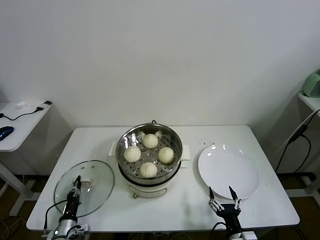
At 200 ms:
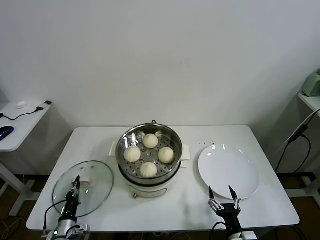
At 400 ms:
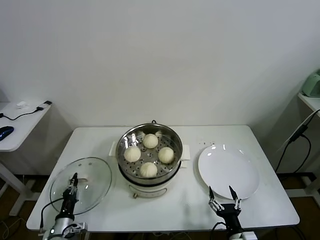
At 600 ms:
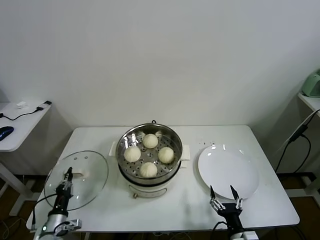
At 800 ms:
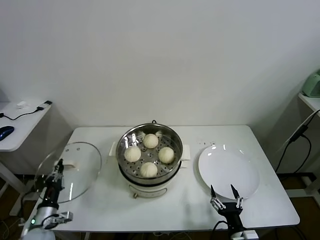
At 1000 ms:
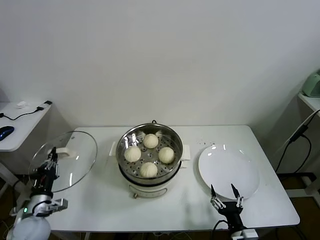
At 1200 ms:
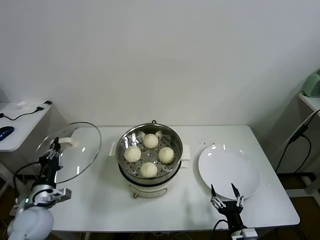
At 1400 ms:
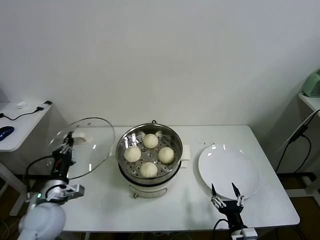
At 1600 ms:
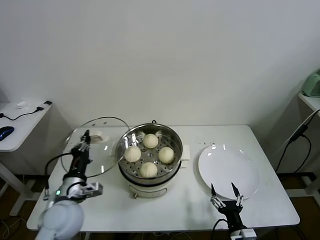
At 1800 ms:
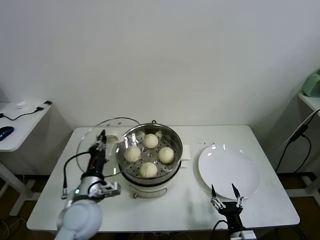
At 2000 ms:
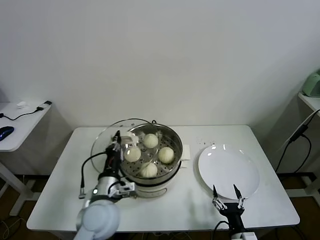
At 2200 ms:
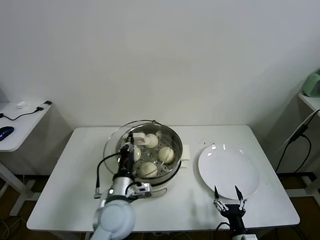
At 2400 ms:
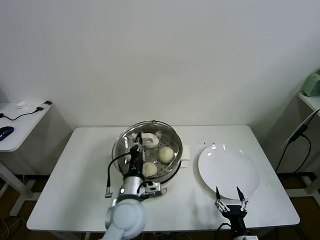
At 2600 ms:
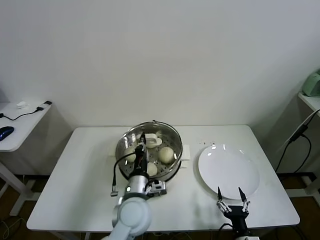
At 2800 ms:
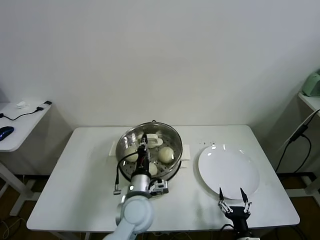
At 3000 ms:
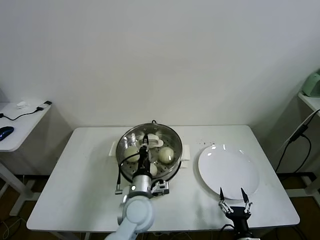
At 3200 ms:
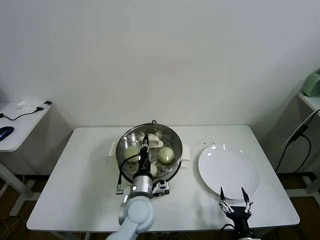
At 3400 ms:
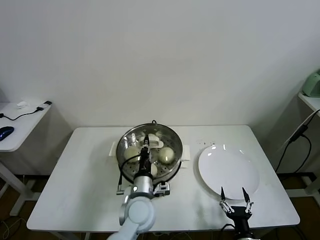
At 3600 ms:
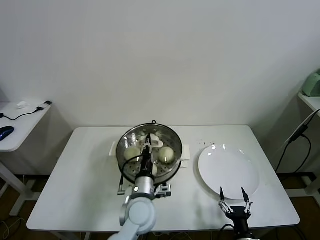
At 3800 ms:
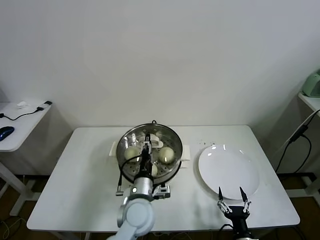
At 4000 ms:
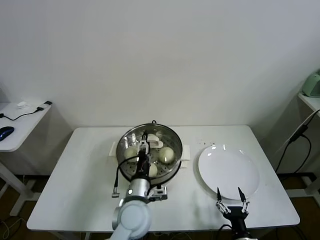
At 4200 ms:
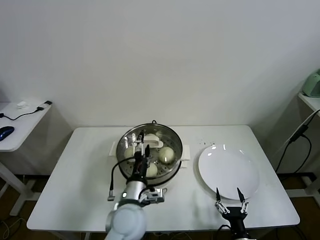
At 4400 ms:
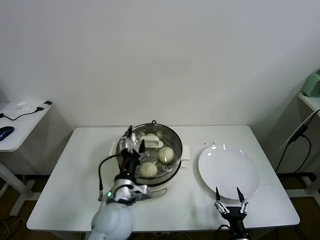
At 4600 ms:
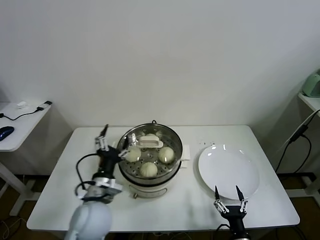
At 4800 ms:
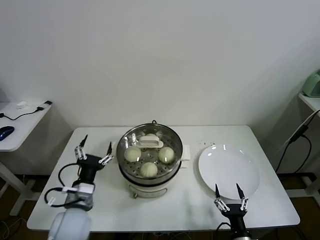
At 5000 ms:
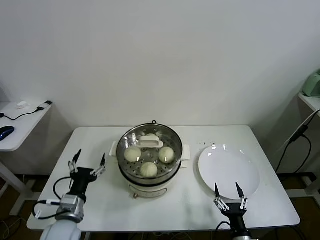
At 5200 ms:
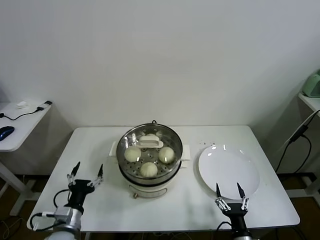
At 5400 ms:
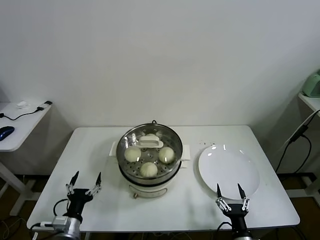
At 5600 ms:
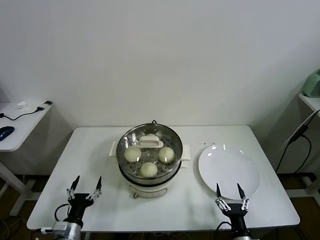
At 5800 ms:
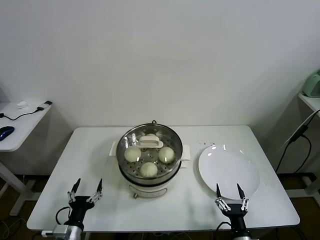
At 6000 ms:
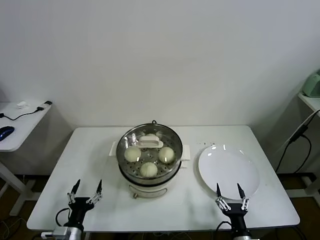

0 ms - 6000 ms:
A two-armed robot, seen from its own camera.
Task of the whole recording: take steamed baozi put them in steamer.
Step, 200 ms - 3800 ms: Place the pot lid on the steamer with left gripper.
0 ms - 1600 ms: The left gripper goes some 25 cm upward.
1600 ms - 3000 ms: The left gripper shifts approximately 20 cm to the right.
3000 ms - 4400 ms: The left gripper ends up approximately 5 cm from where it was, and opens its fingers.
4400 ms - 6000 ms: The left gripper goes some 25 cm to the left, downward and backward.

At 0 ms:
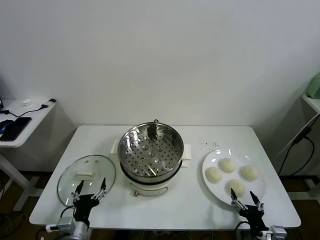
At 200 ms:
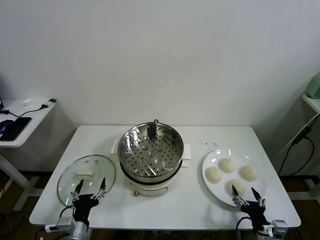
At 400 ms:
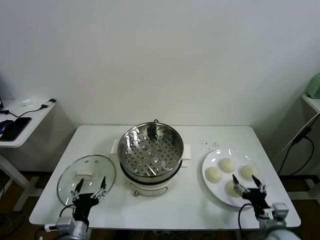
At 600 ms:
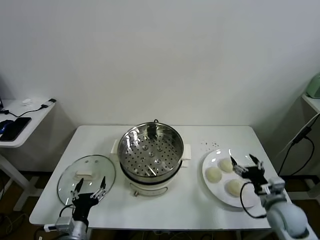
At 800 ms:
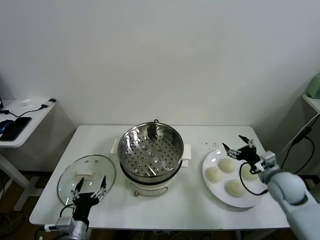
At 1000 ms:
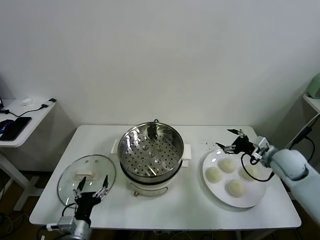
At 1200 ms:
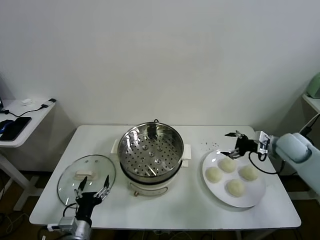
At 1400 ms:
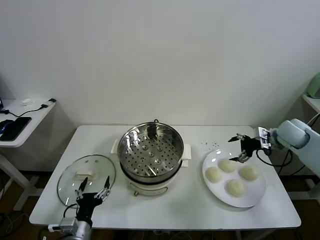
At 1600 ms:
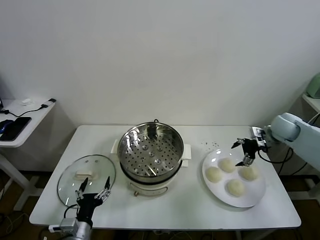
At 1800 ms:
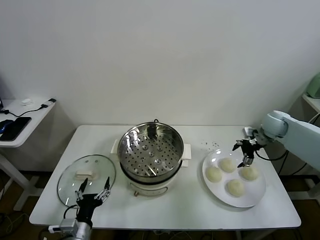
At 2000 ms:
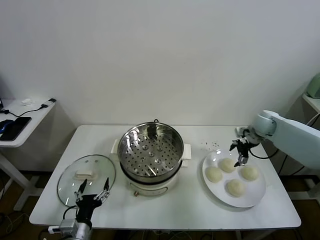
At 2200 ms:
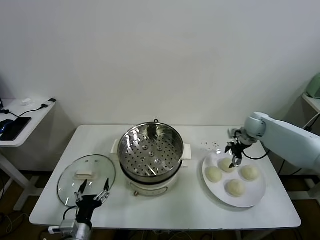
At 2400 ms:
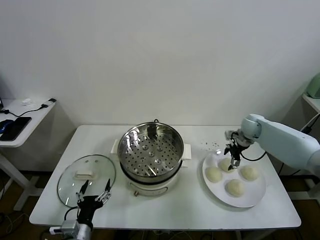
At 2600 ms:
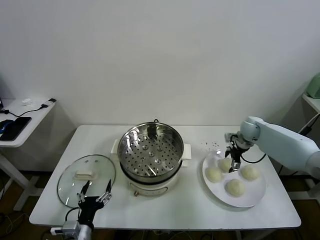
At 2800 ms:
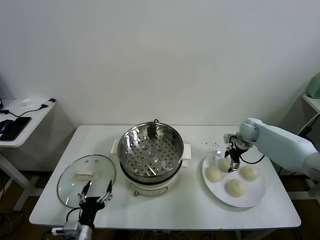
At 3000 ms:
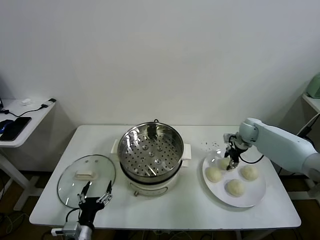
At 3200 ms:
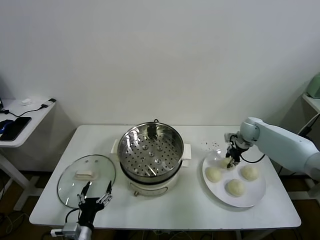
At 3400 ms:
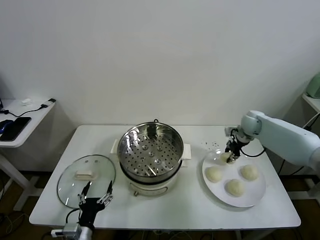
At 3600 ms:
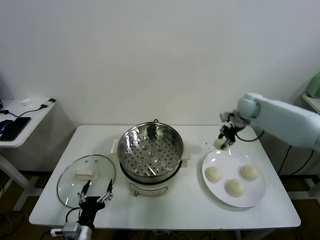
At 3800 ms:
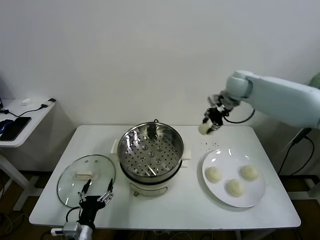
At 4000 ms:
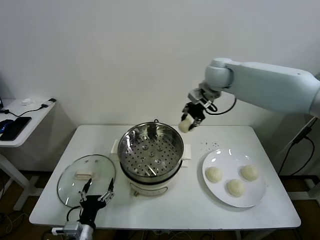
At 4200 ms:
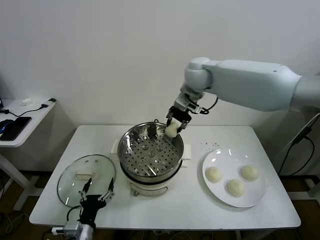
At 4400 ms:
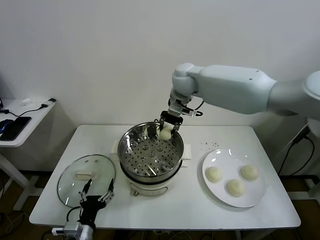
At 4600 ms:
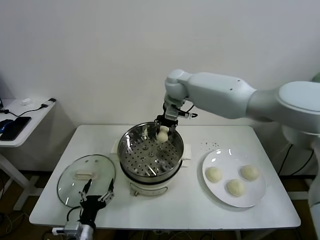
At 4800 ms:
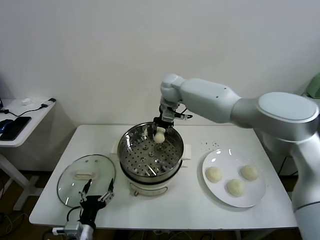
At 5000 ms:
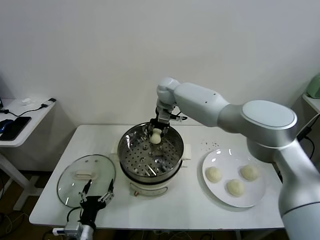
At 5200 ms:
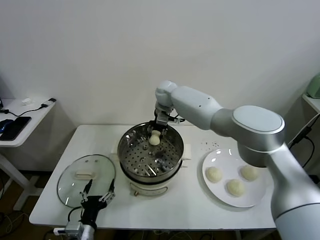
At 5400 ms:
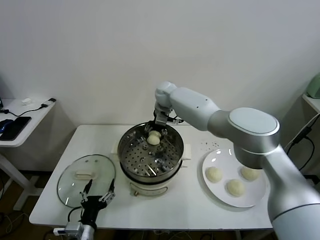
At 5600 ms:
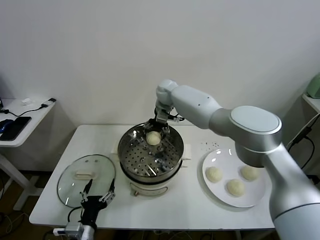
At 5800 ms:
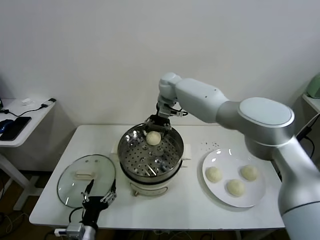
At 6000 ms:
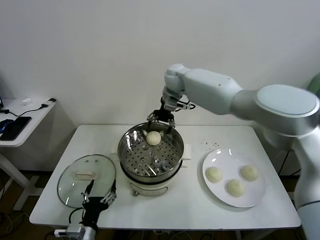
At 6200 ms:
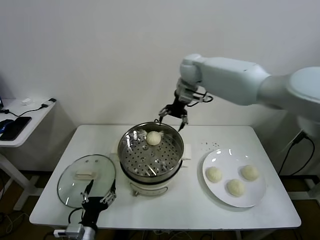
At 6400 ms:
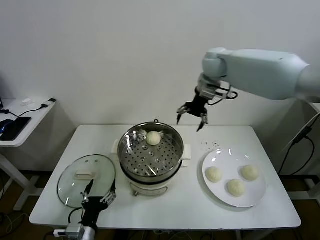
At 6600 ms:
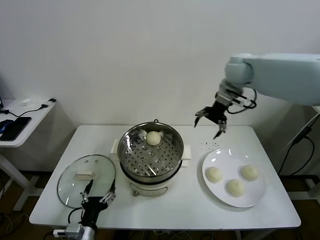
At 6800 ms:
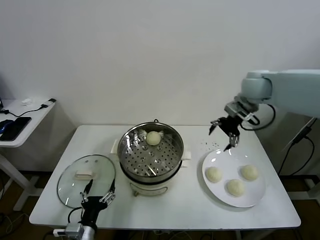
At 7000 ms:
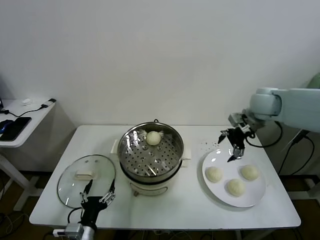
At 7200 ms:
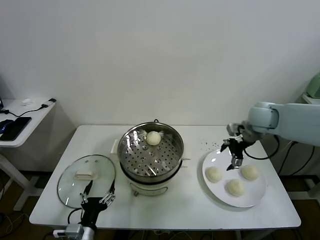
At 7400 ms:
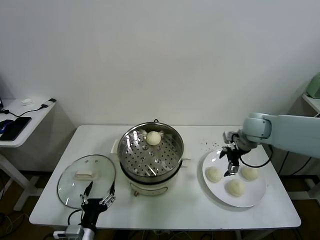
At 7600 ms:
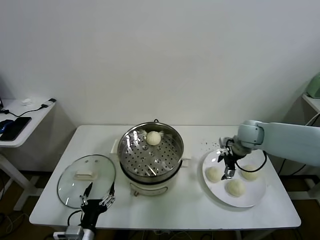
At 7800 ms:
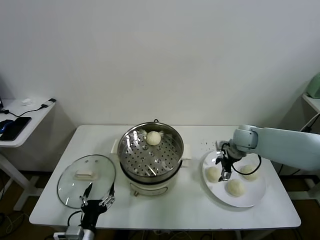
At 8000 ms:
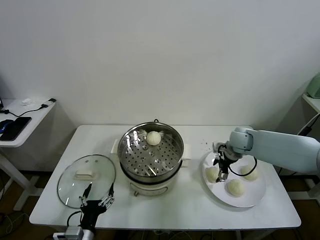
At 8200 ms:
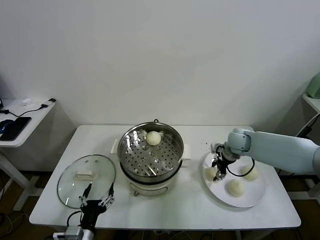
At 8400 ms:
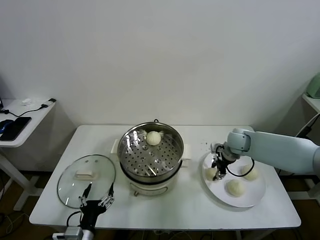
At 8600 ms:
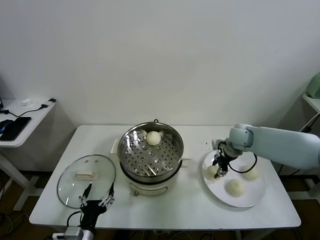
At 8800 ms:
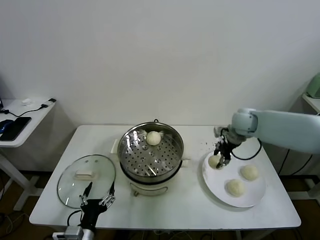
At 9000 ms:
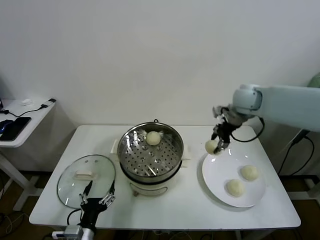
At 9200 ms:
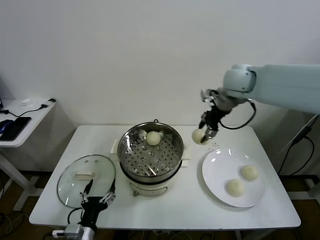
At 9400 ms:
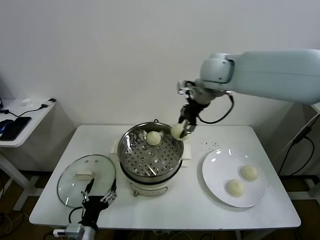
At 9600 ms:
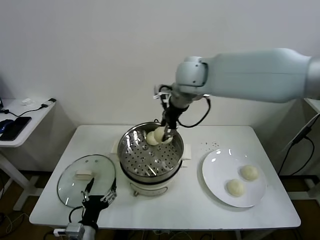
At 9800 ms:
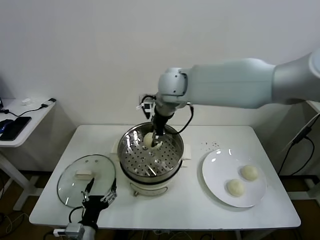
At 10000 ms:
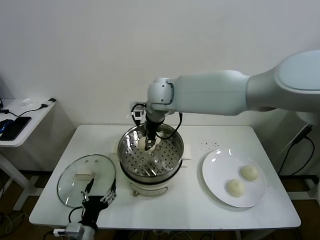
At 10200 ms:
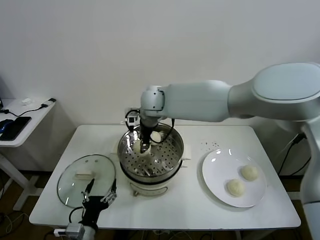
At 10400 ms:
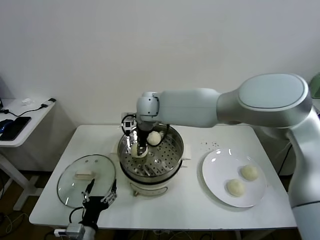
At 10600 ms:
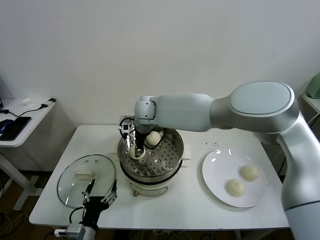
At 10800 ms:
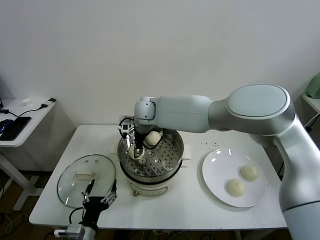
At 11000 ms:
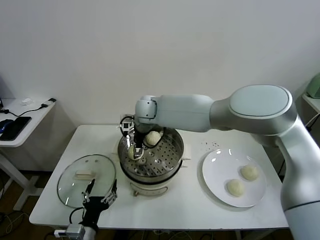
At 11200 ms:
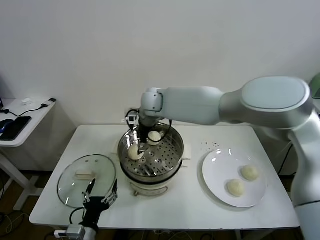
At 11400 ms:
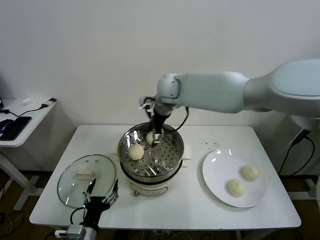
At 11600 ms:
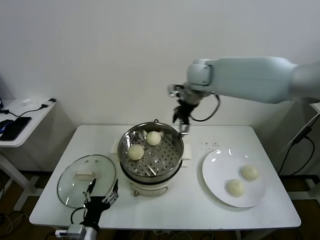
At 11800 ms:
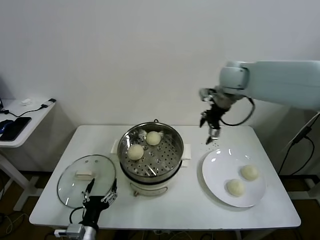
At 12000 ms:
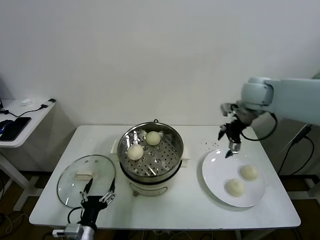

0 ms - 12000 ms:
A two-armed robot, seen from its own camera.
Task of the whole recording: take steamed baozi put them in steamer.
Step, 0 ms - 2800 ms: Grasp the baozi in the plate with right gripper.
Step, 3000 ms - 5600 ms: Place the baozi on the steamer with right gripper.
Step, 5800 ms - 8000 ms: Grasp the baozi in the plate with right gripper.
Step, 8200 ms - 11000 ms: Place the baozi on the steamer with right gripper.
1600 ms - 3000 ms: The right gripper is displaced downward and to the left by roughly 10 cm, and closes.
3000 ms - 4400 ms: The right gripper travels to the left and upward by roughly 35 cm.
4400 ms - 6000 ms: The right gripper moves some 10 cm downward and comes back, and opens.
6000 ms - 7600 ms: The right gripper moves to the right, downward and backward, some 35 cm.
7600 ms - 9000 ms: The right gripper goes approximately 20 cm upward, and closes its fingers.
9000 ms - 10400 ms: The right gripper is displaced to the left by approximately 30 cm.
10400 ms - 12000 ms: The right gripper shifts approximately 35 cm to the right, and opens its fingers.

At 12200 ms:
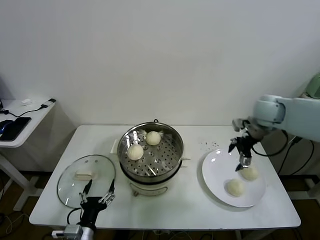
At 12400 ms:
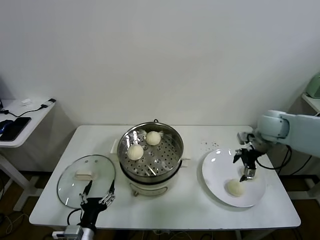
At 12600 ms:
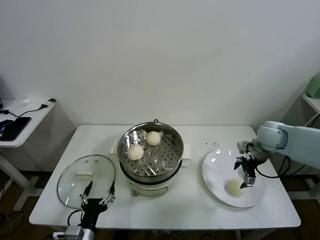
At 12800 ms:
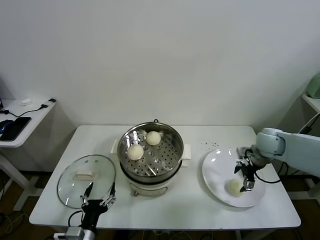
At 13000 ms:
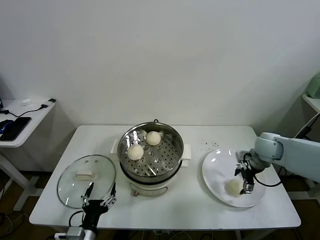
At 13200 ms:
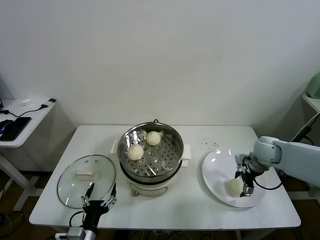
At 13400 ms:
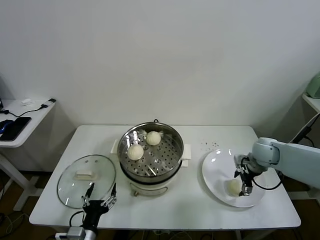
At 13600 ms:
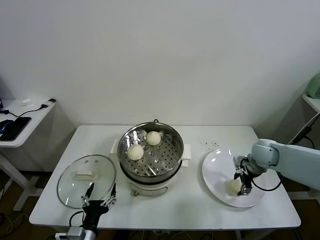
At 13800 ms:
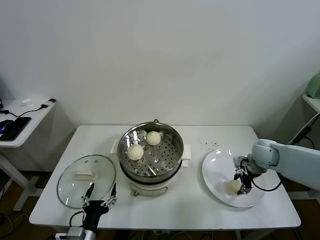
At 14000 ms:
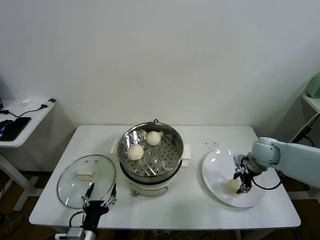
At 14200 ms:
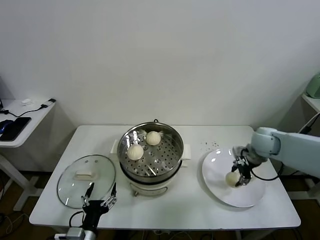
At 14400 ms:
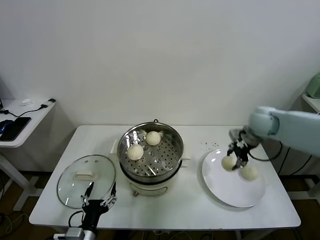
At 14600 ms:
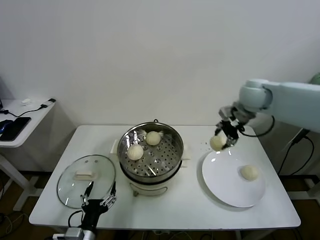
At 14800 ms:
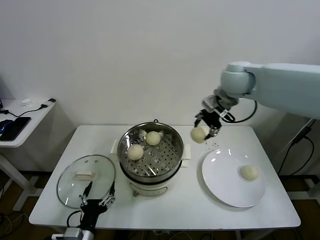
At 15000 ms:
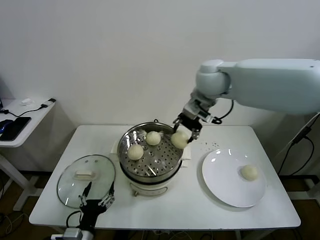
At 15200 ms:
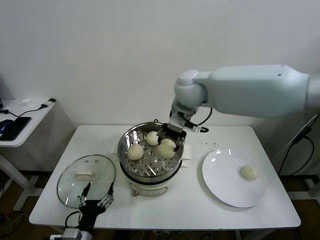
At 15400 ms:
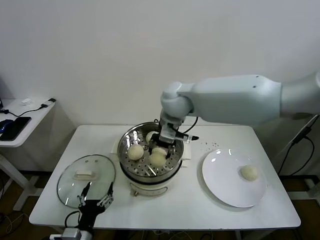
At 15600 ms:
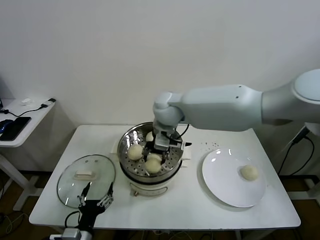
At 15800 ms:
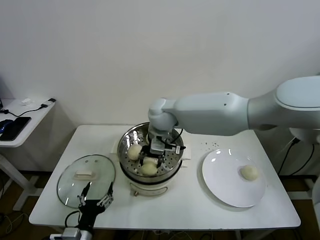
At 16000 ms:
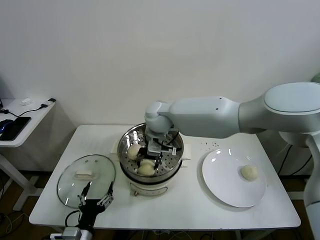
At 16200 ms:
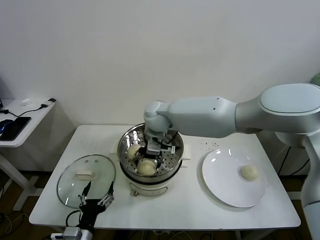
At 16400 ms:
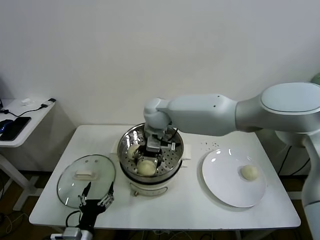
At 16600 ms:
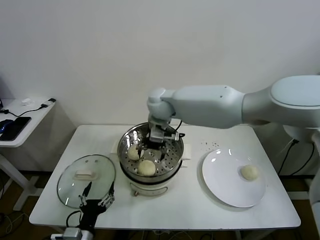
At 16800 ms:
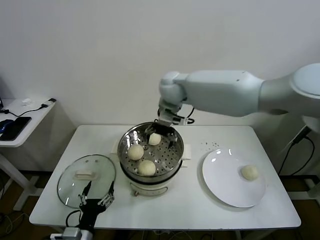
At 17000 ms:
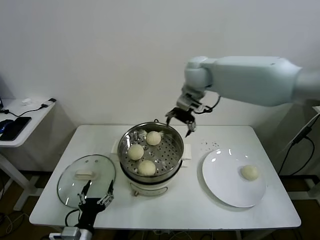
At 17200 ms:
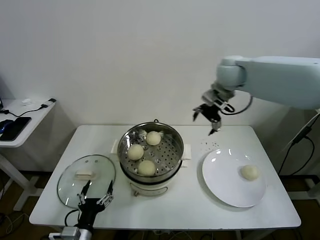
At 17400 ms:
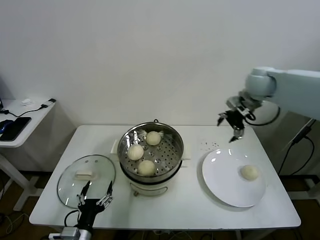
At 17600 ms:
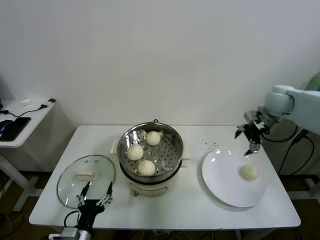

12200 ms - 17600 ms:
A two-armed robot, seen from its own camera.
Task of the whole recording: take steamed baozi put them in steamer.
Step, 12200 ms - 13600 ms: Grasp the baozi in the plate with right gripper.
Step, 13800 ms - 16200 ms: Place the baozi on the steamer with right gripper.
12200 ms - 13600 ms: The right gripper is displaced downward by some 15 cm, and closes.
13600 ms - 15000 ms: The right gripper heads upward and to the left, covering roughly 35 cm.
15000 ms - 16200 ms: The right gripper is displaced to the left and downward by about 20 cm, and opens up.
16200 ms - 17600 ms: The right gripper travels to the right by some 40 cm.